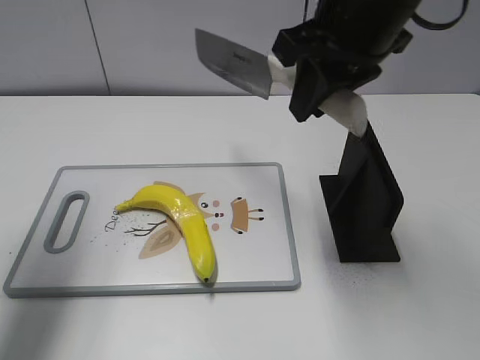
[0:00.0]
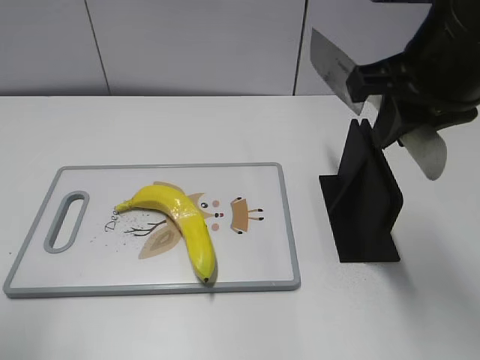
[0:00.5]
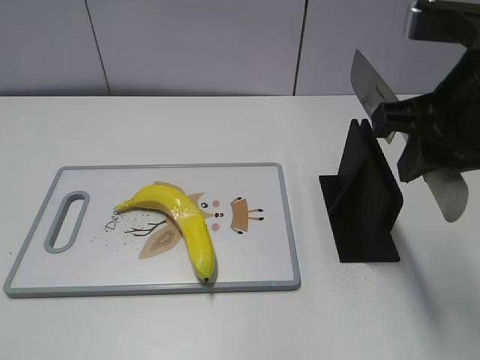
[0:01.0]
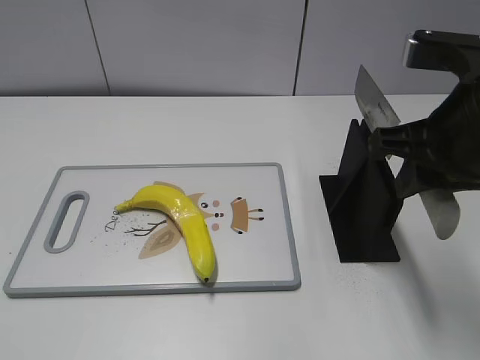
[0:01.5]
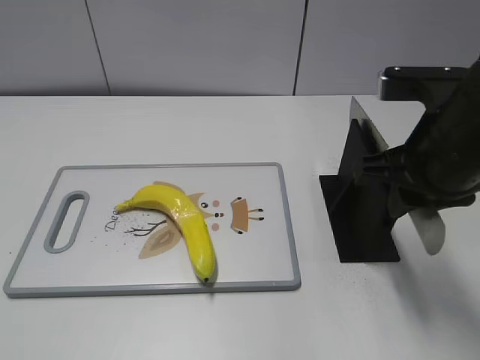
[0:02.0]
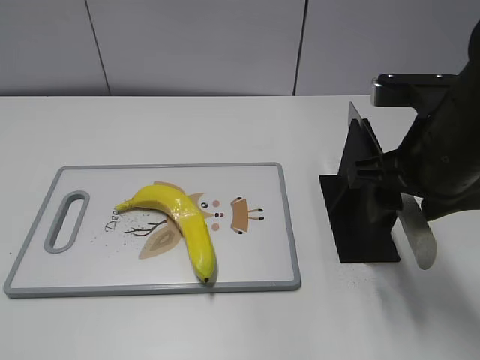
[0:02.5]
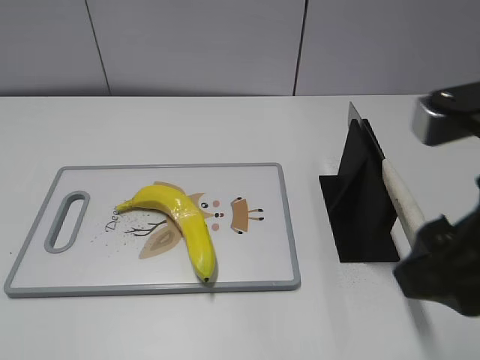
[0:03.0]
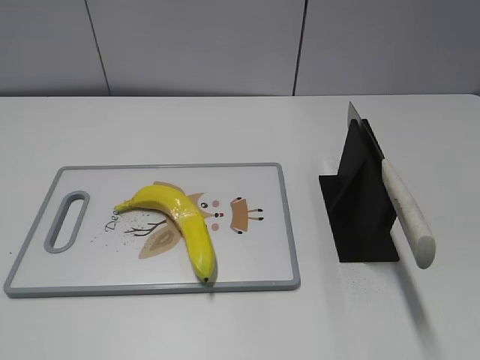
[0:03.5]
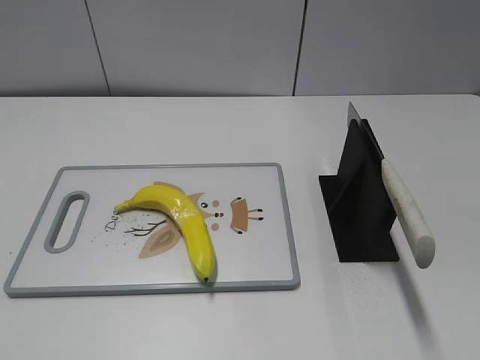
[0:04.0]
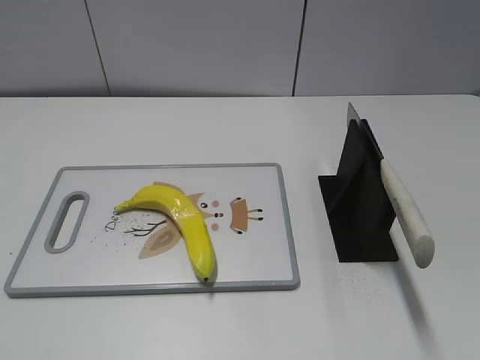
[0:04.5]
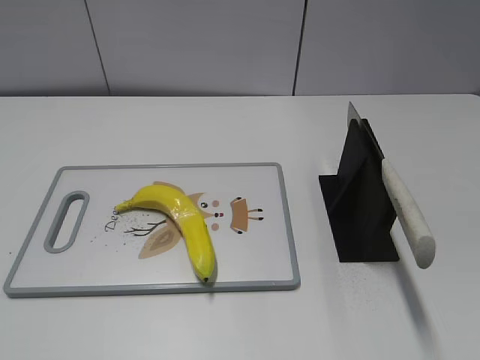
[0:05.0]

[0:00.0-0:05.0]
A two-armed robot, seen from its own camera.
Task of the whole recording: cut plastic banana.
Step, 0:00.0 to 0:01.0: Secure the blade with your left hand.
Step, 0:01.5 to 0:05.0: Place the knife on the storage rack with your right hand.
0:00.0 to 0:02.5: The left gripper travels backward by roughly 30 cm. The right gripper shifts about 15 cm downward, to the right and backward, and opens.
0:02.5 to 0:05.0: The right gripper shifts roughly 30 cm backward and to the right.
